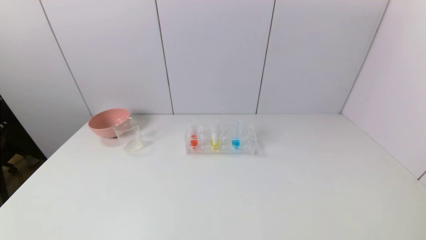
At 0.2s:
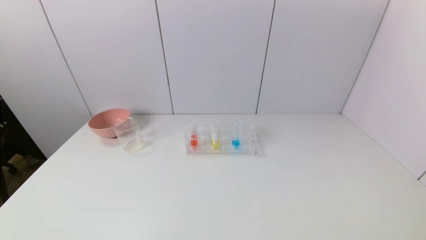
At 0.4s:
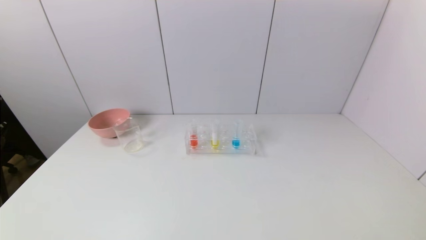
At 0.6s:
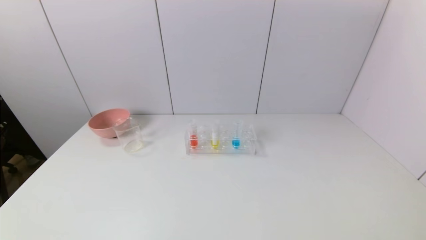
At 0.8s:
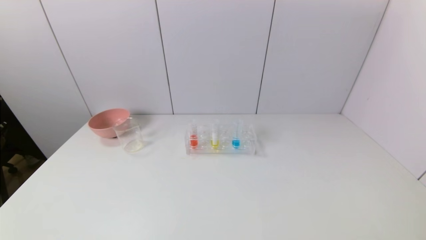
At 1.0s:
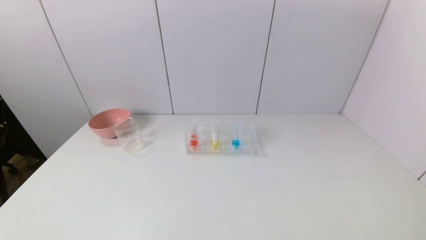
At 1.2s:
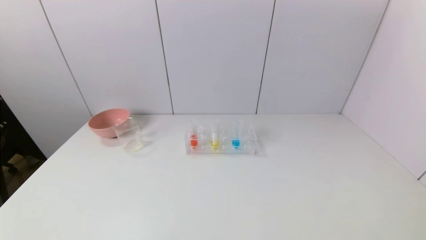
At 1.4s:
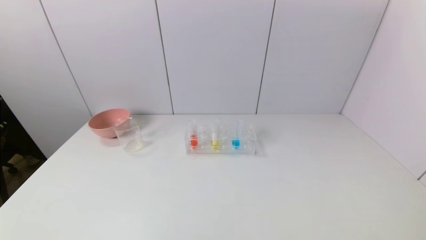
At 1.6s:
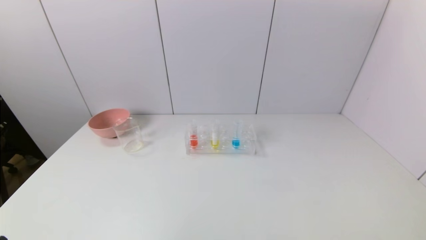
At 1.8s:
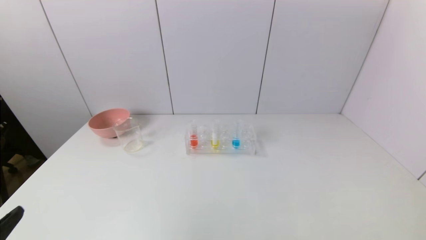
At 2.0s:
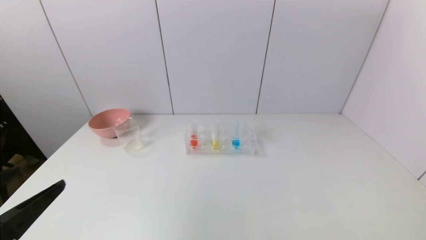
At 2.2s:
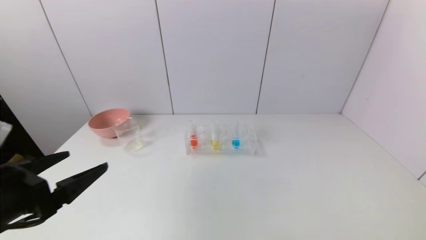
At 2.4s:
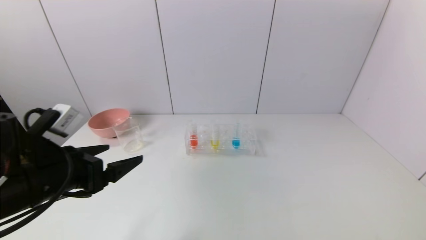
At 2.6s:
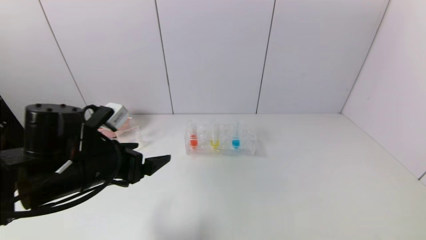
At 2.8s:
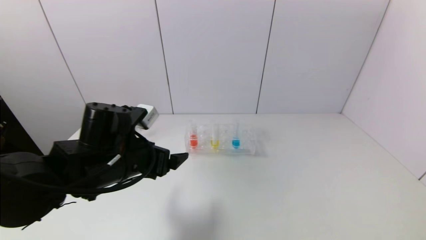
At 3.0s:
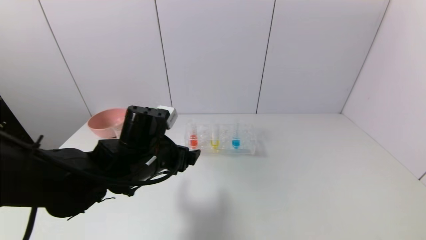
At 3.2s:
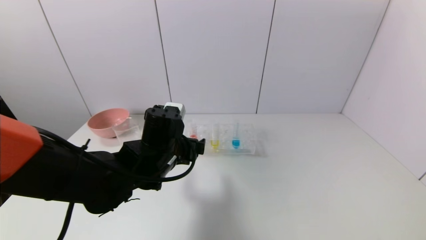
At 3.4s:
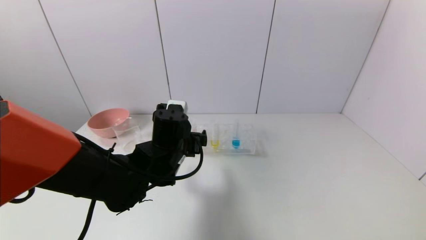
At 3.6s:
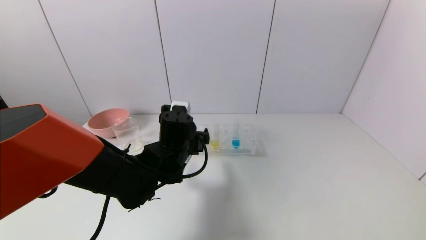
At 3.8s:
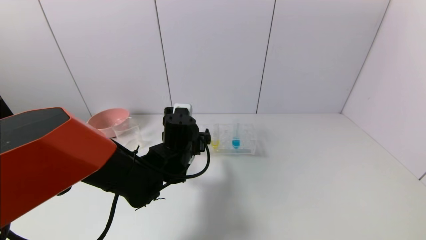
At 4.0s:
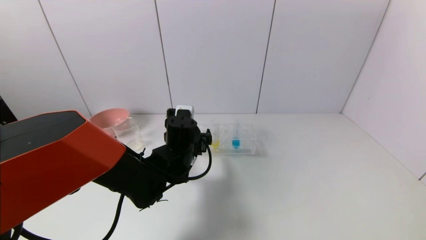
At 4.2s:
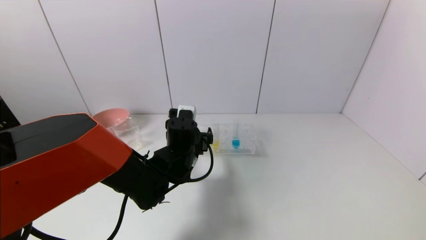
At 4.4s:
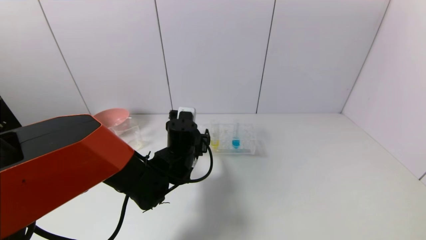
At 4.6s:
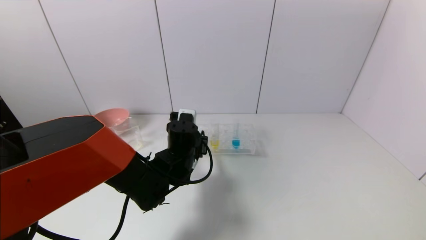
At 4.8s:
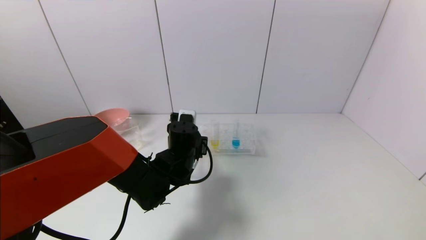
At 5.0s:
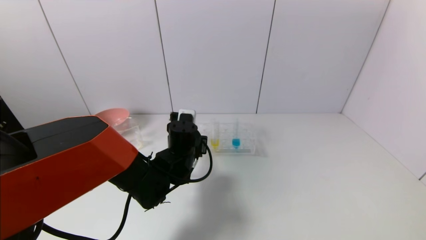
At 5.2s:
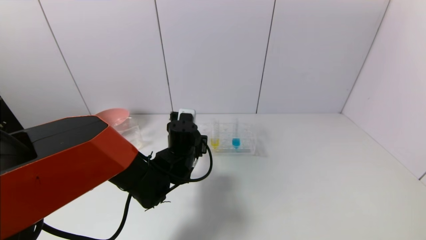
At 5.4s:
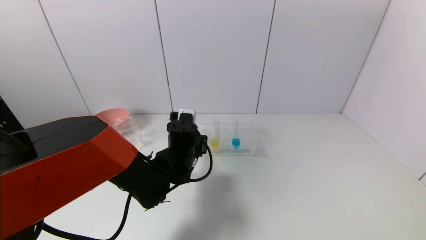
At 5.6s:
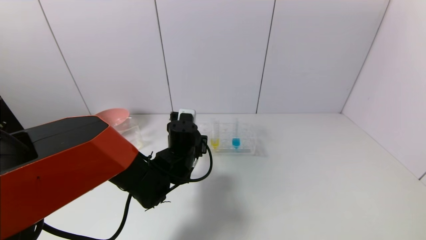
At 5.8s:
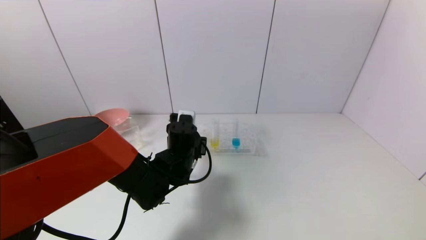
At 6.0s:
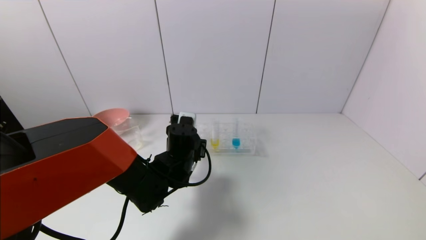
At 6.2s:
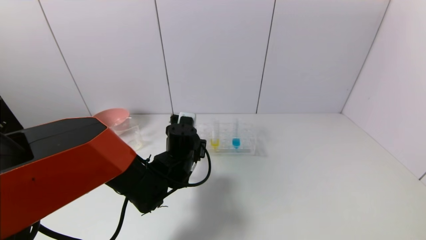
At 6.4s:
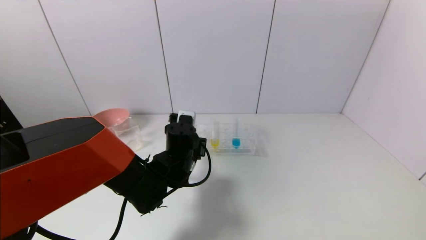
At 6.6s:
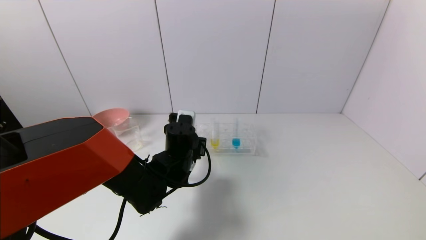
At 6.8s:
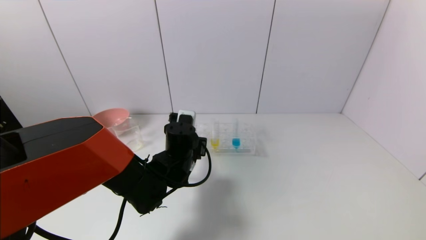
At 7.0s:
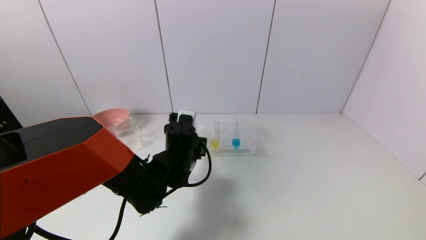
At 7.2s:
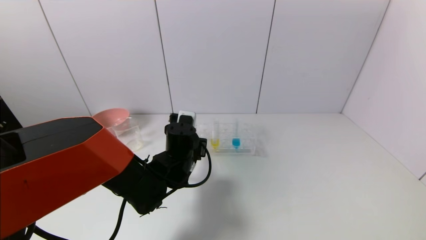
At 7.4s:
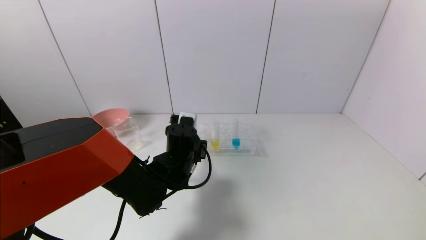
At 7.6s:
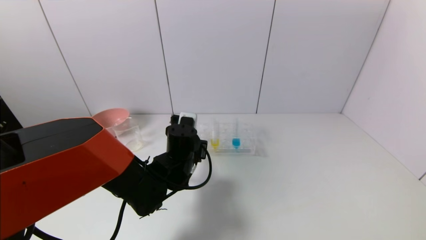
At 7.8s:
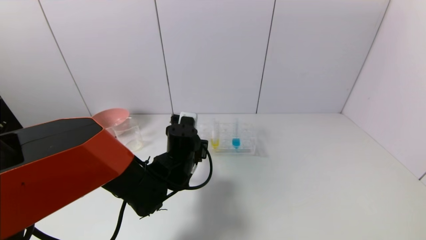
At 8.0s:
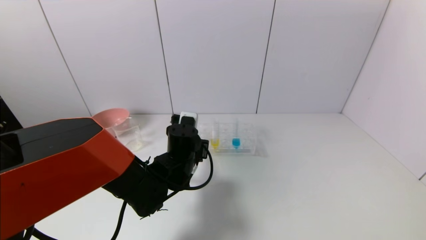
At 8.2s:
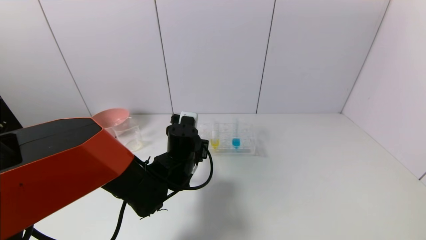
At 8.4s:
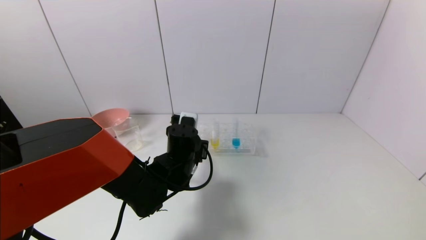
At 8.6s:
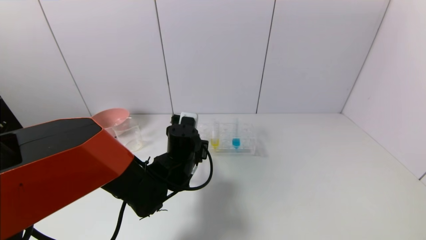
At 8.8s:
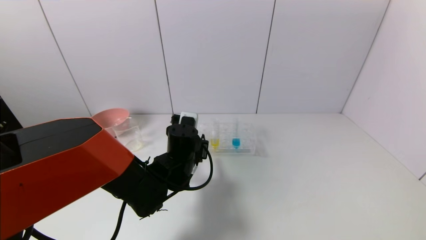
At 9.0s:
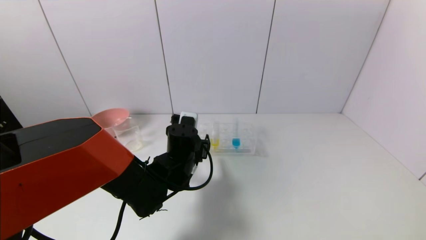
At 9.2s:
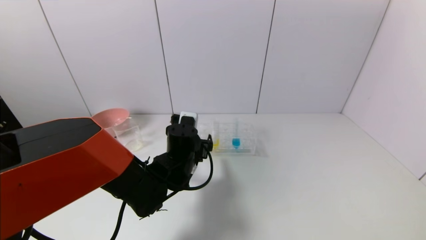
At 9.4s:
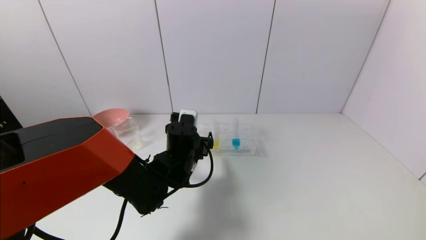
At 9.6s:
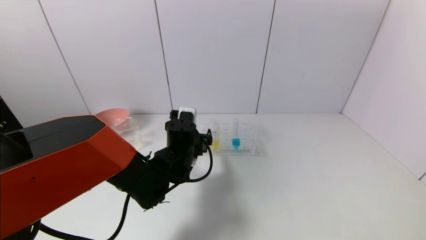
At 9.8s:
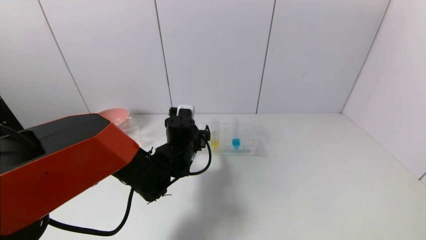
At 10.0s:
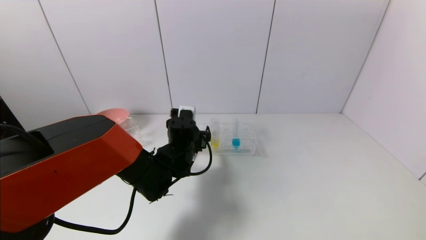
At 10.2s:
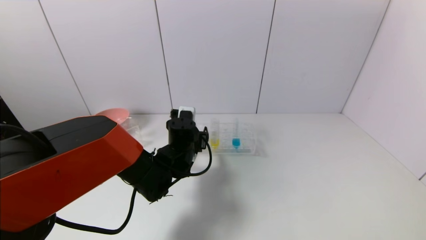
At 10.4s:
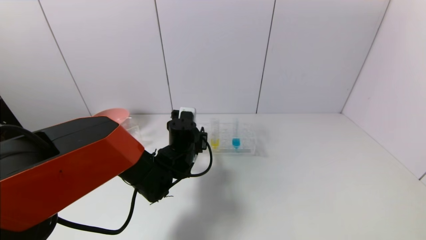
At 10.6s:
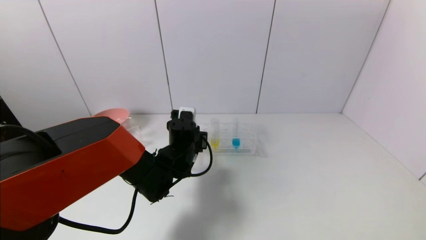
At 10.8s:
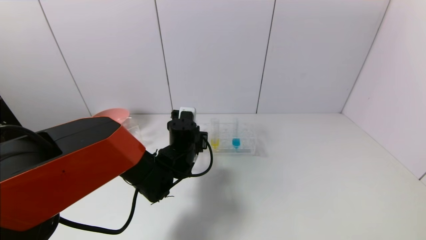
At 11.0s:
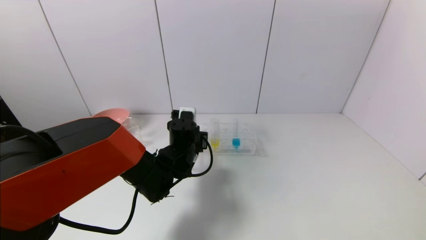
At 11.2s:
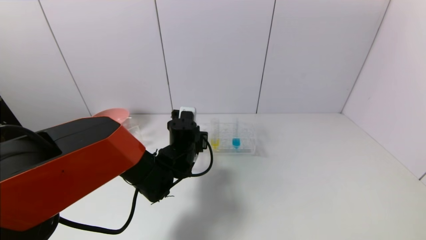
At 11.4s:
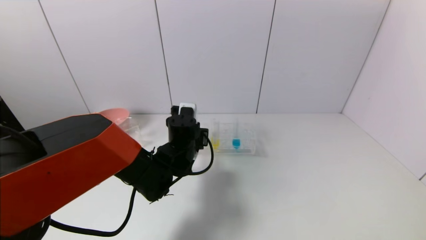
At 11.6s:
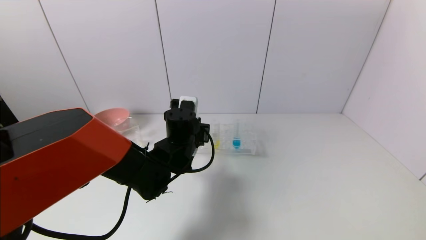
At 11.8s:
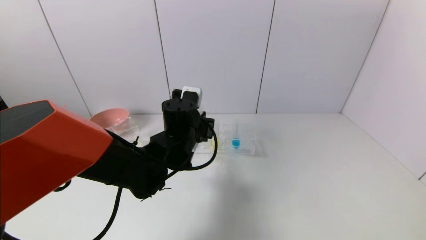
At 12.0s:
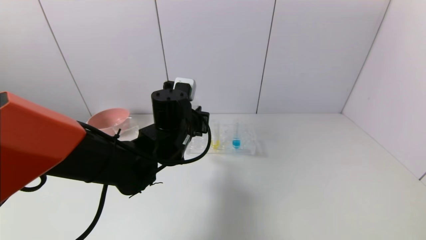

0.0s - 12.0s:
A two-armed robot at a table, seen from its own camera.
Task of the whole recording: pick up the test tube with yellow pigment and the test tube with red pigment by grippers and pour them into the beaker.
Step, 0.0s - 10.8s: Grasp the red reagent with the left gripper.
1.6s - 3.0s: The left gripper travels forward and to the right by roughly 35 cm.
3.0s - 4.4s: The left gripper travels forward, to the right and downward by roughly 10 cm.
4.4s - 6.0s: The left gripper closes.
6.0s - 7.6s: Neither gripper changes place.
7.6s - 9.0s: The left gripper opens up.
9.0s - 10.4s: The grippers make only small movements.
10.4s - 12.0s: The left gripper moves upward, some 10 cm, and closes.

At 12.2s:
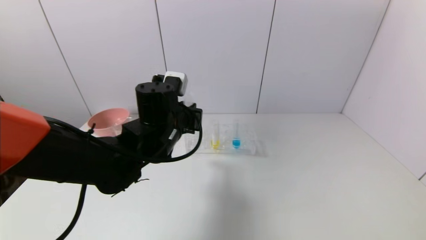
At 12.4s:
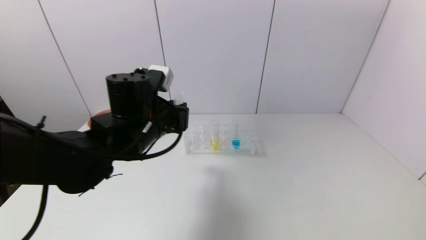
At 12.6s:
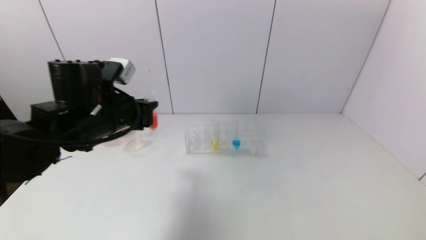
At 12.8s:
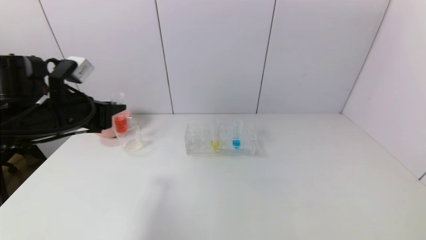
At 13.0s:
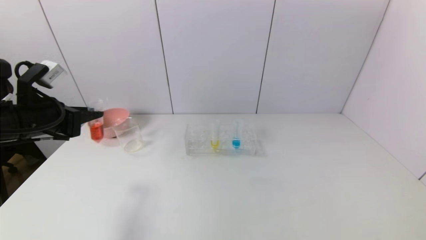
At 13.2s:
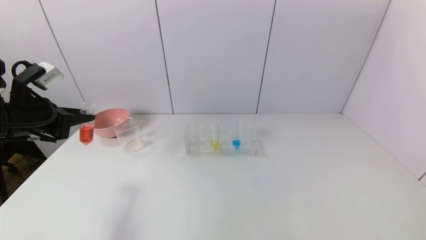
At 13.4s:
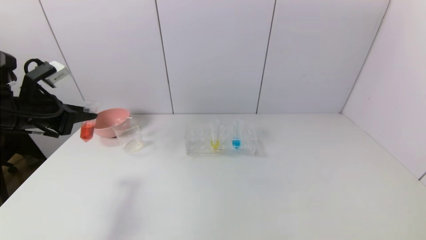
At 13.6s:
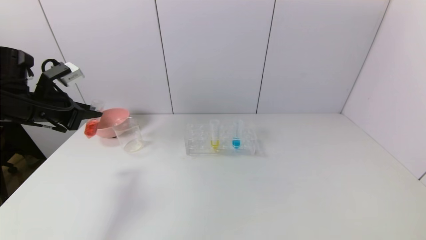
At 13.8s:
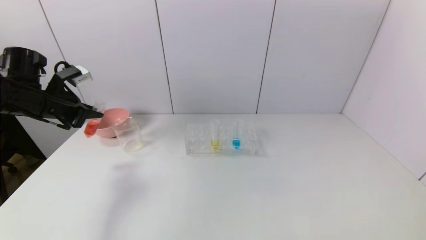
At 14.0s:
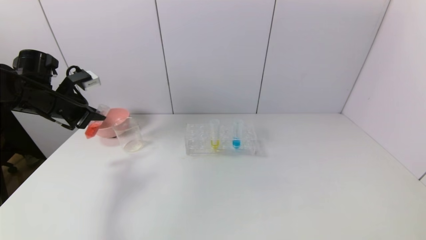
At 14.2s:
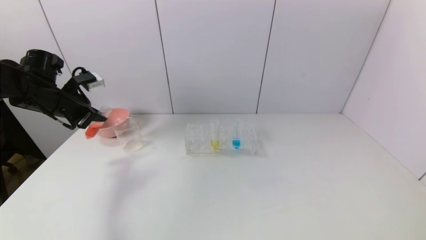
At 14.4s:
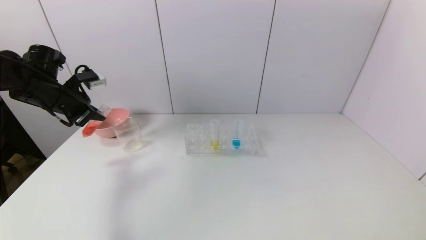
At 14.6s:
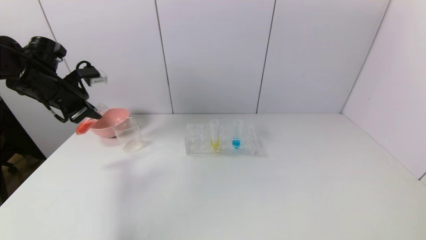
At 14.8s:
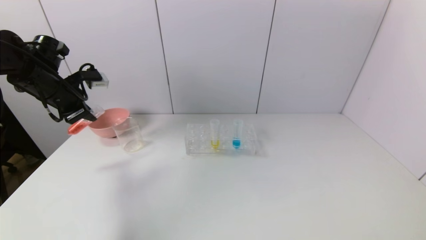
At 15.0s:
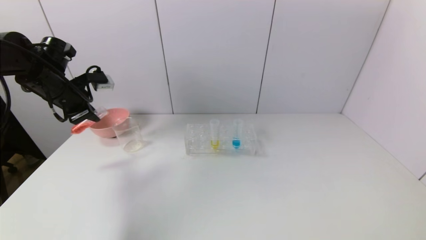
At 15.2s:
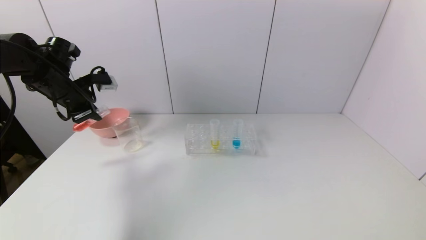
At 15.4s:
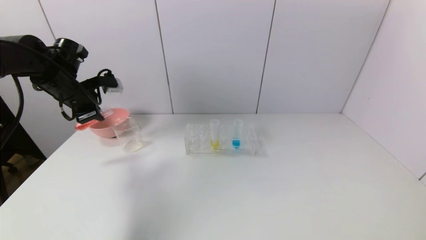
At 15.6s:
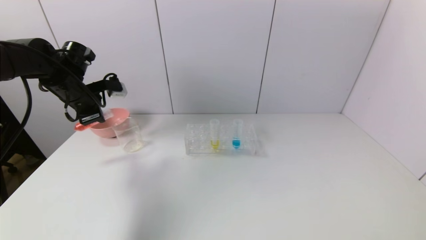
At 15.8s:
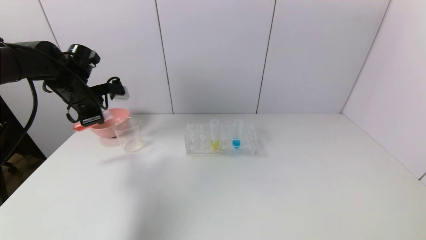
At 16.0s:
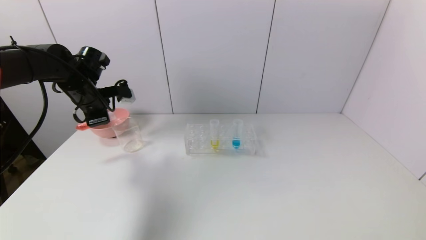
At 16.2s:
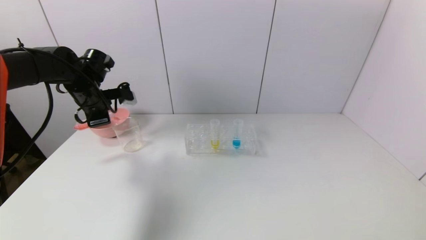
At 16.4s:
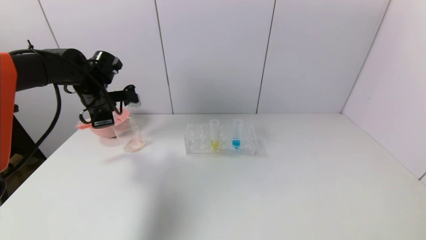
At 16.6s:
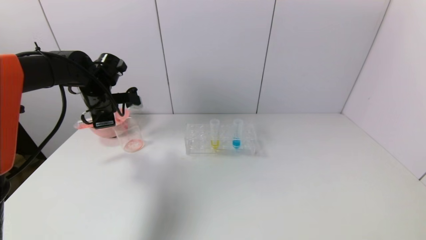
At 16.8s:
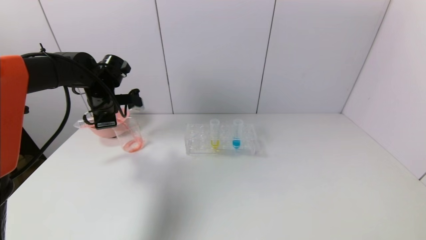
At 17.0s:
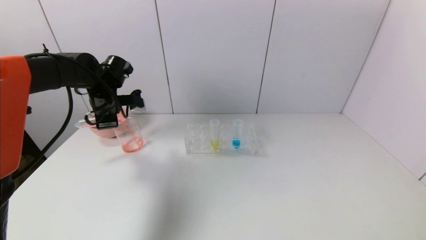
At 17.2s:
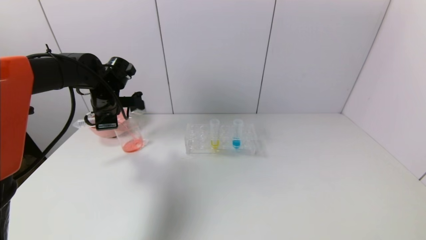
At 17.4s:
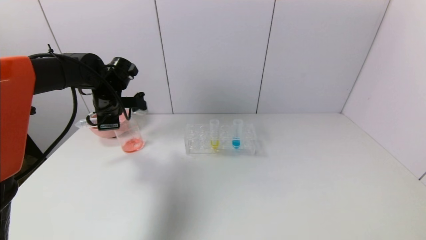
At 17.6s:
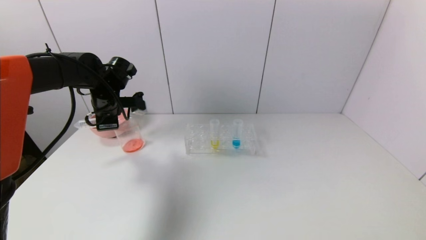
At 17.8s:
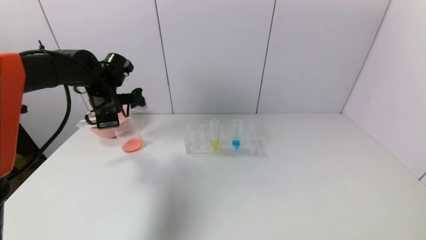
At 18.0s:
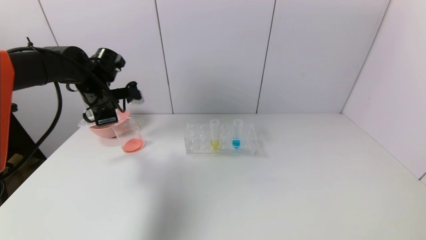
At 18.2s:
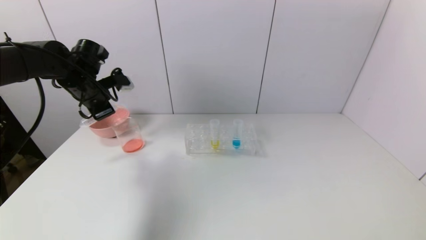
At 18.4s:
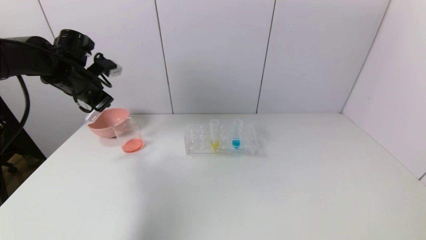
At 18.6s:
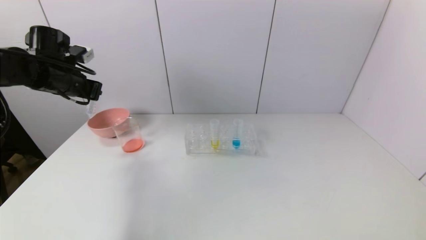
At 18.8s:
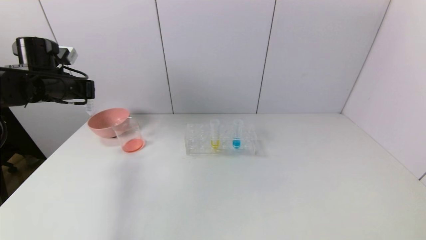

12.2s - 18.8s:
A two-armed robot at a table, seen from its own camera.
Task of the whole recording: pick up the test tube with yellow pigment and the test tube with red pigment by grippers and pour them into the beaker.
Step, 12.2s - 17.6s: Pour the red reagent into the graduated cylinder with the left gripper.
12.2s - 13.8s: The left gripper moves to the left, roughly 25 cm.
13.8s - 15.4s: The left gripper moves forward, approximately 5 cm.
15.4s - 17.2s: The left gripper shifts some 5 cm to the right.
17.2s - 18.8s: The left gripper heads to the left, covering about 10 cm.
